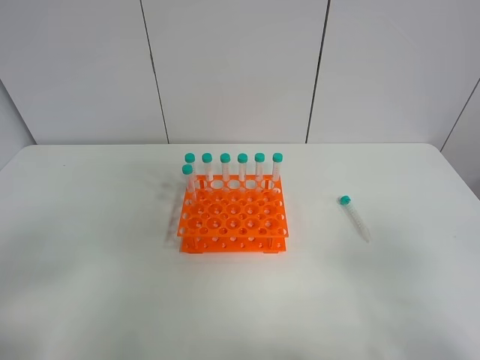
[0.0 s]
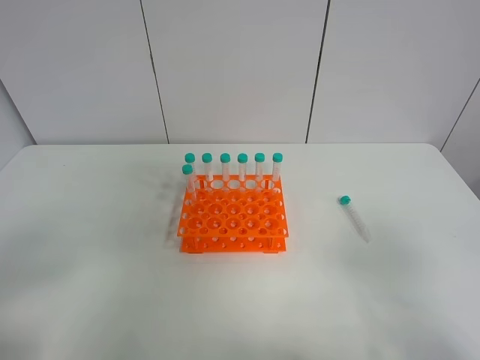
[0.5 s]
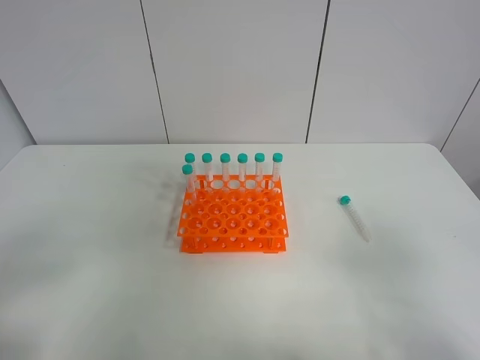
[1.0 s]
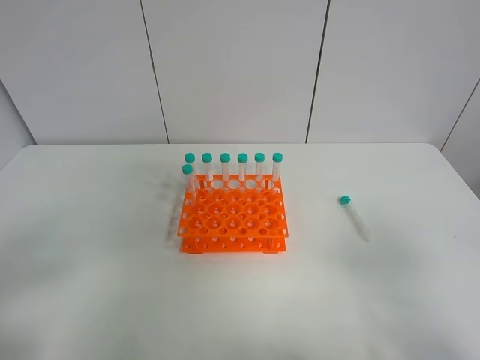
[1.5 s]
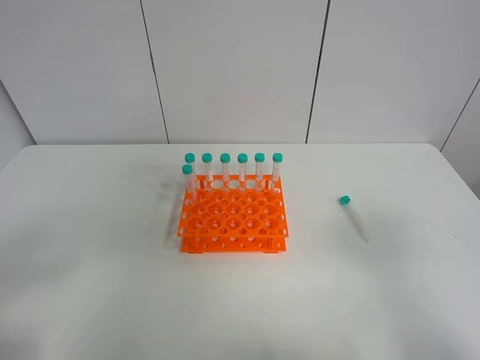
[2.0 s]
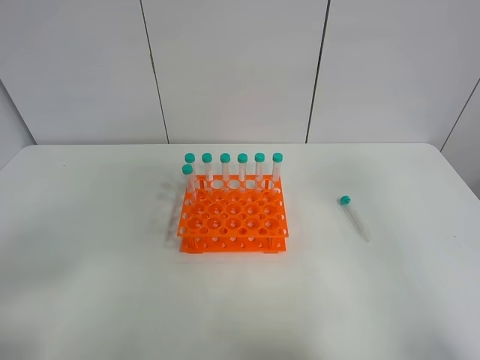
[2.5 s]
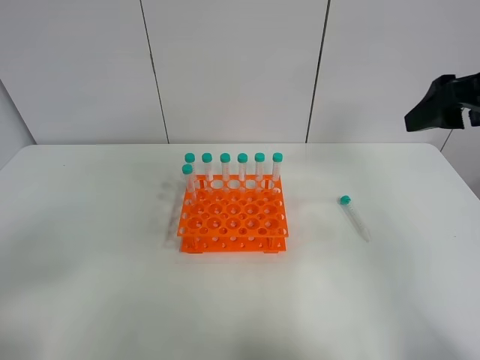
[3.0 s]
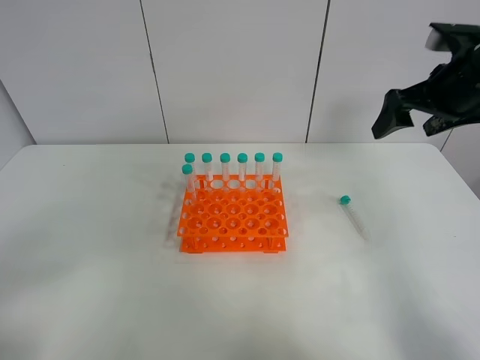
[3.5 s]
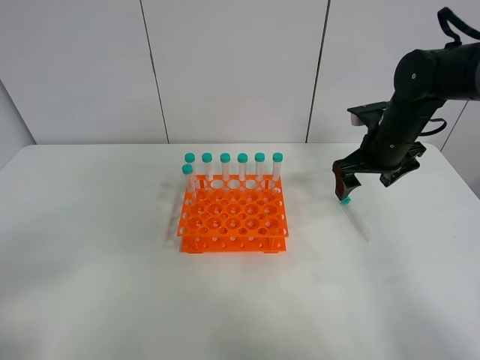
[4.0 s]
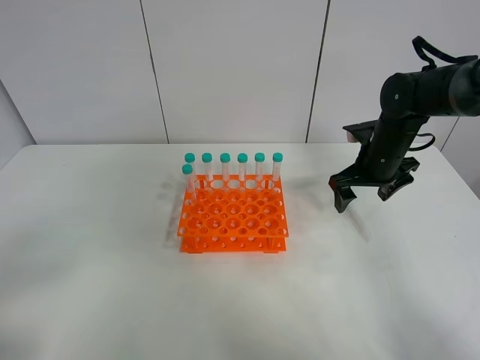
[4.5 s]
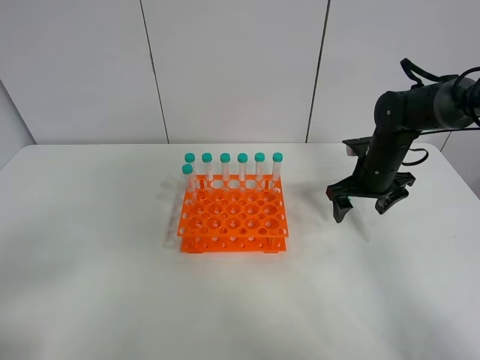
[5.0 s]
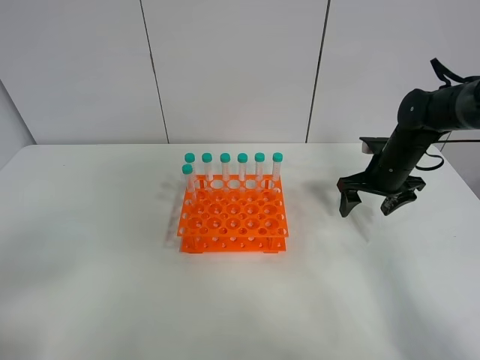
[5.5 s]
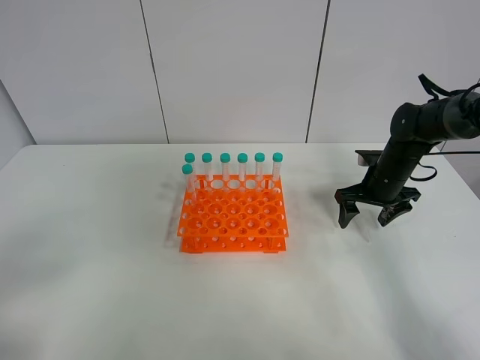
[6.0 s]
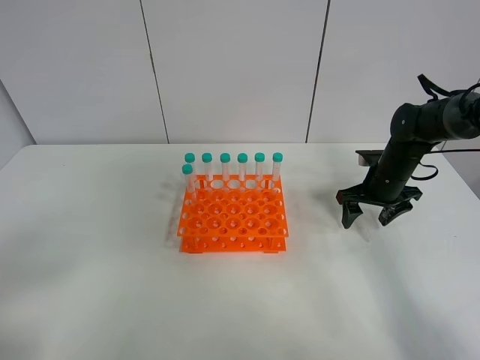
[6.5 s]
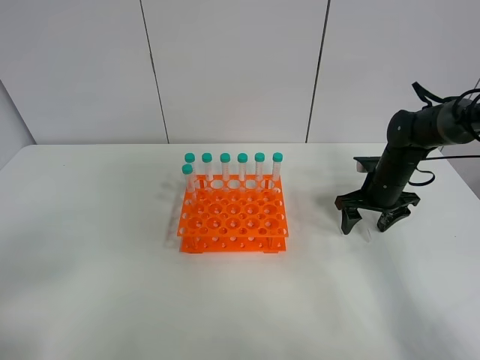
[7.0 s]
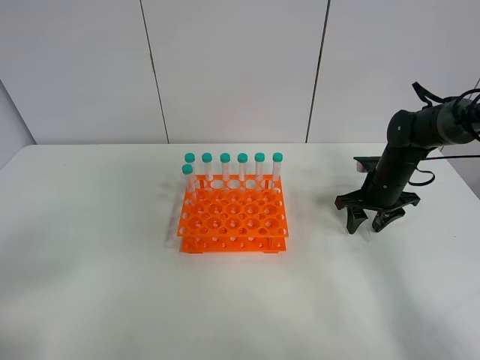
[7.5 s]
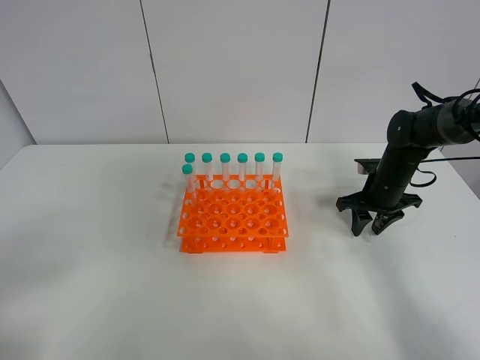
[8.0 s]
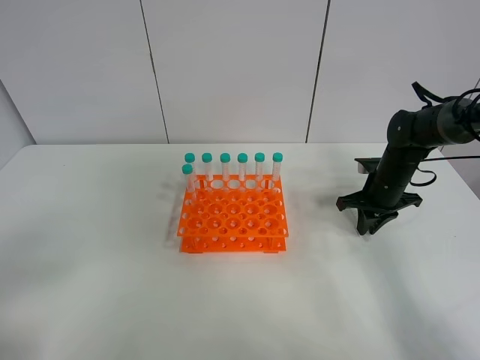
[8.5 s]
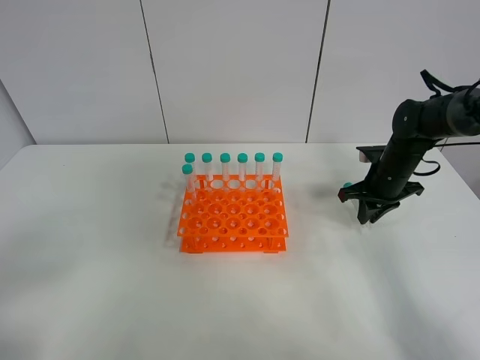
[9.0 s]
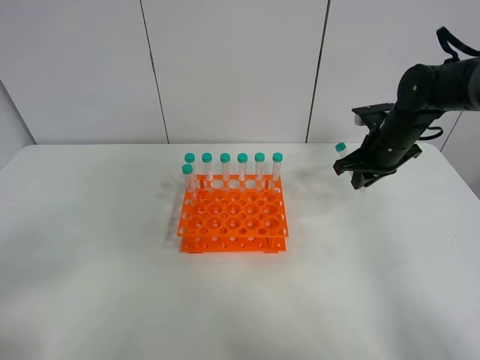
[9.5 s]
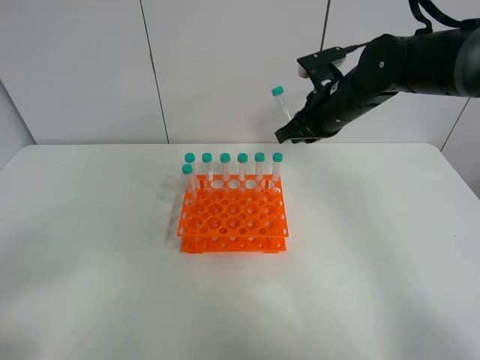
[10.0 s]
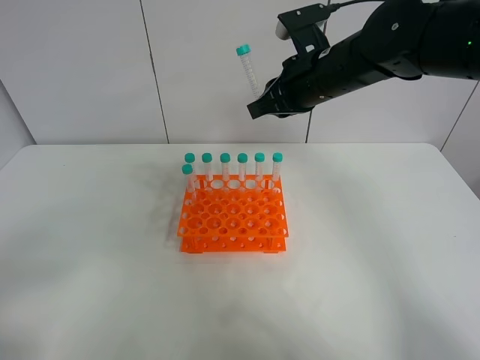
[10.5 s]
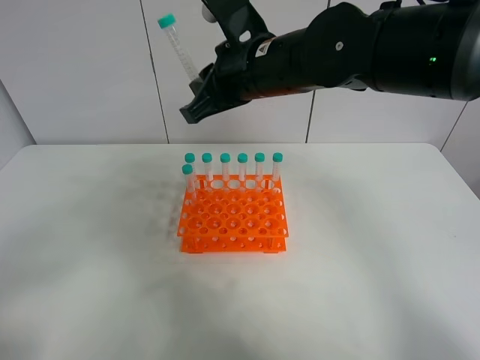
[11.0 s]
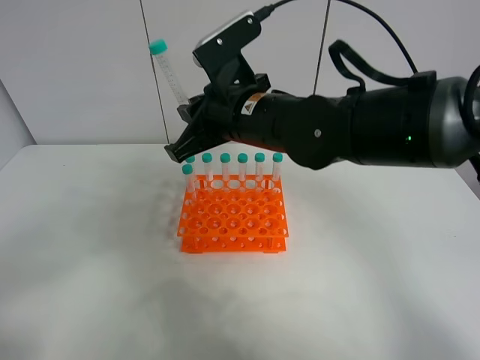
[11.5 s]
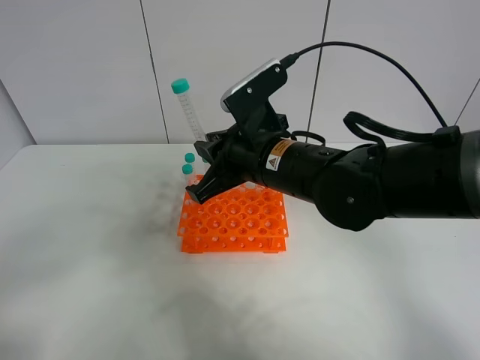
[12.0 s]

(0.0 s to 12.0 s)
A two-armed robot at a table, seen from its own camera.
Task of the whole recording: Put the test tube on the table back onto the test tube rack.
Step, 0.0 s - 8.0 s: Pick up the test tube with the right gripper.
2.0 s - 4.0 s: The right gripper goes some 40 cm forward.
4.0 s - 6.0 s: The right gripper goes roughly 10 cm downward.
6.0 s - 8.0 s: The right gripper closes.
8.0 s - 10.0 s: The right gripper moves upward and to the left, some 20 cm.
10.0 s - 12.0 s: The right gripper moves backward and to the left, some 15 cm.

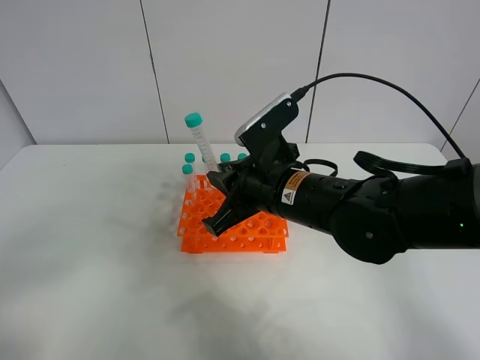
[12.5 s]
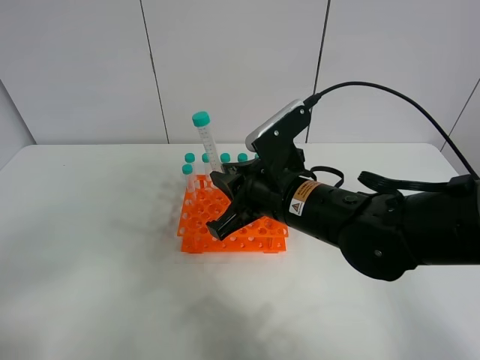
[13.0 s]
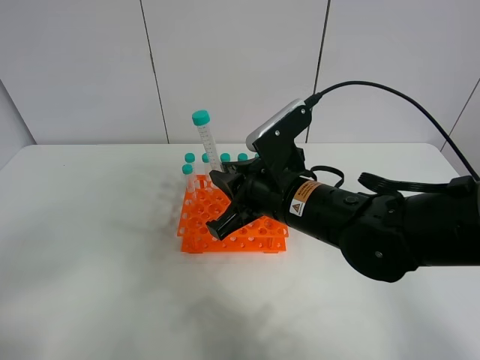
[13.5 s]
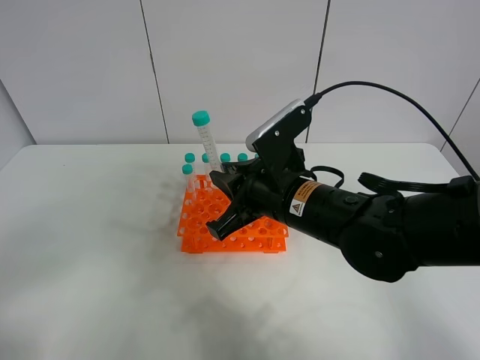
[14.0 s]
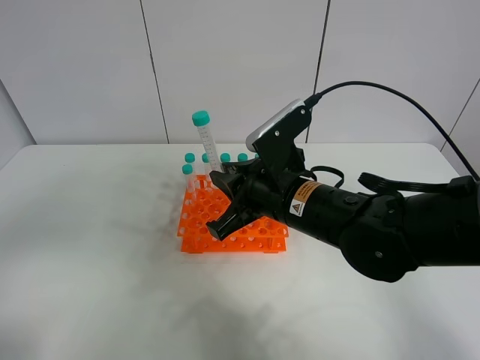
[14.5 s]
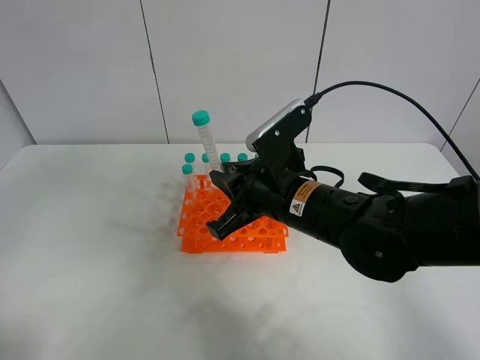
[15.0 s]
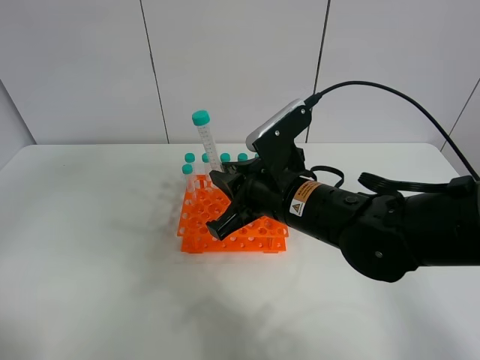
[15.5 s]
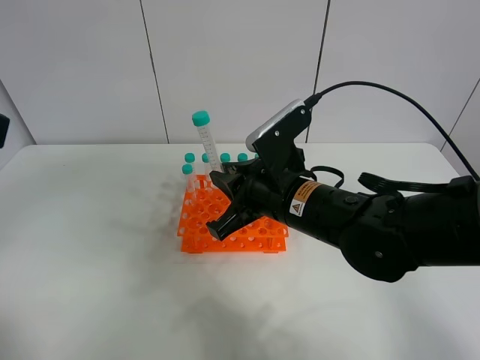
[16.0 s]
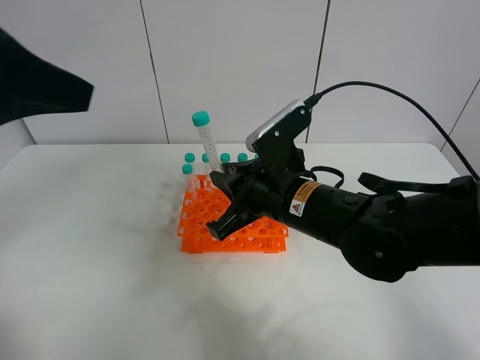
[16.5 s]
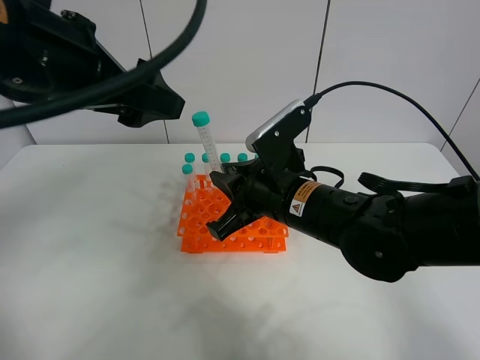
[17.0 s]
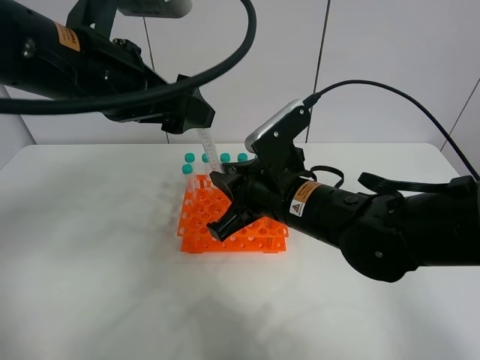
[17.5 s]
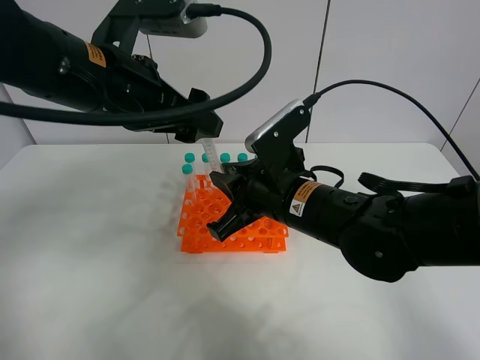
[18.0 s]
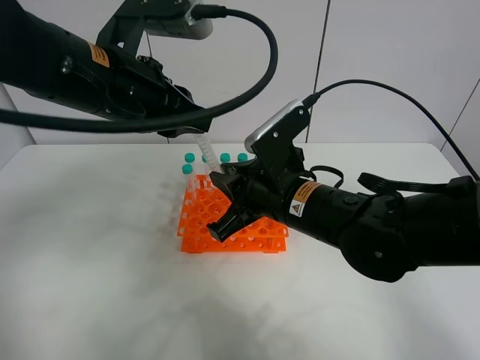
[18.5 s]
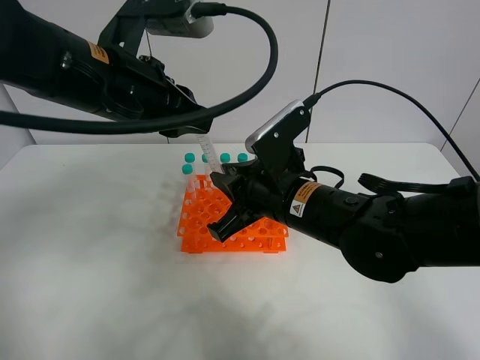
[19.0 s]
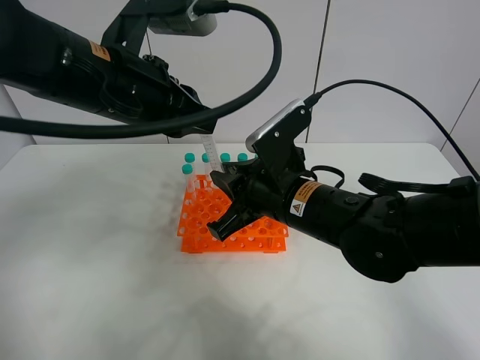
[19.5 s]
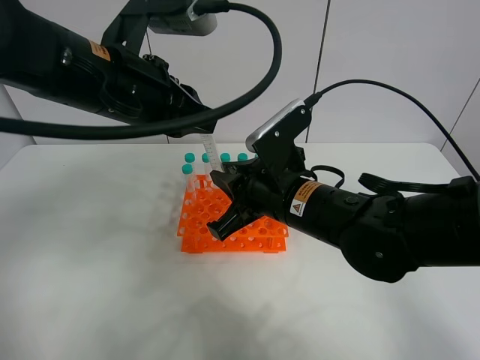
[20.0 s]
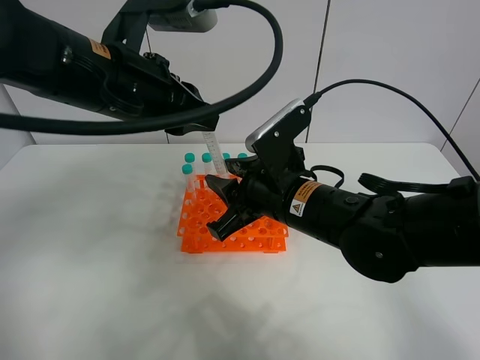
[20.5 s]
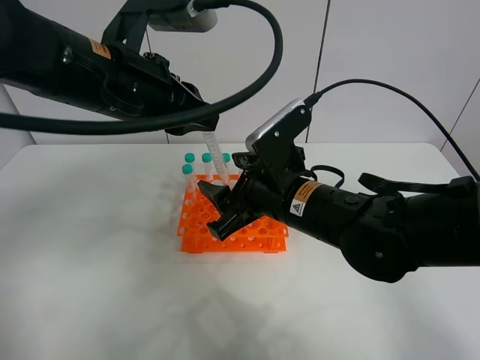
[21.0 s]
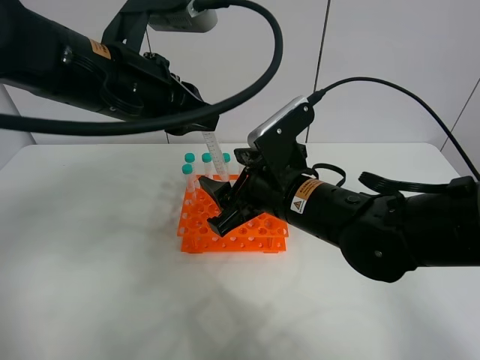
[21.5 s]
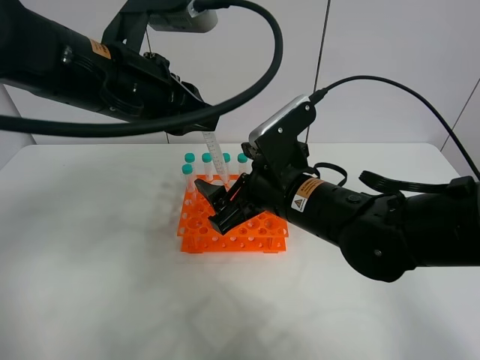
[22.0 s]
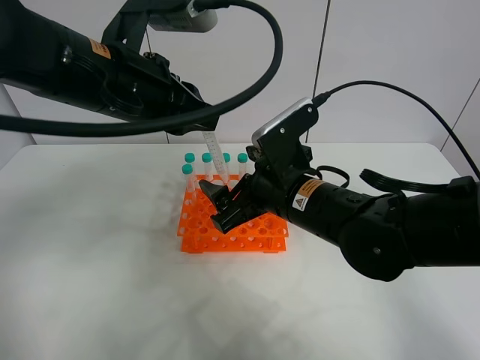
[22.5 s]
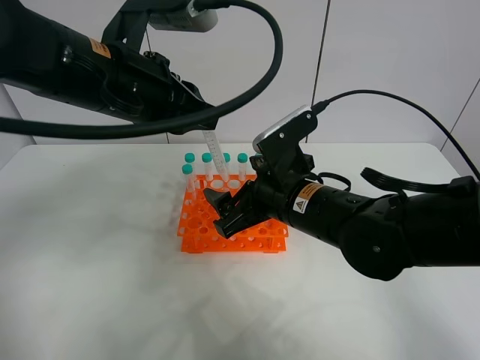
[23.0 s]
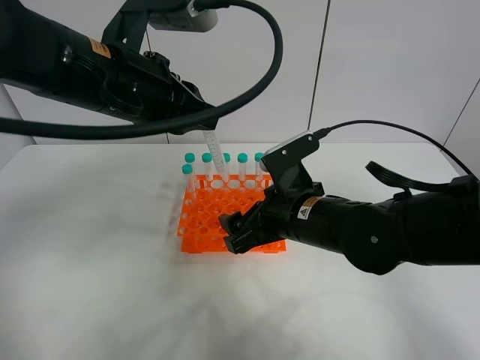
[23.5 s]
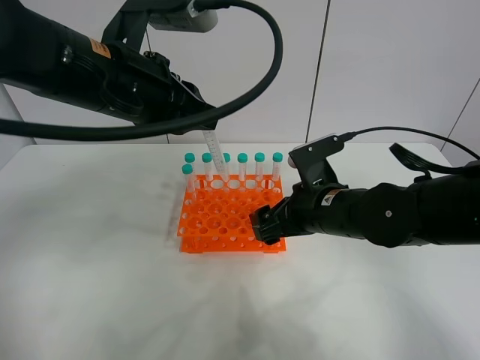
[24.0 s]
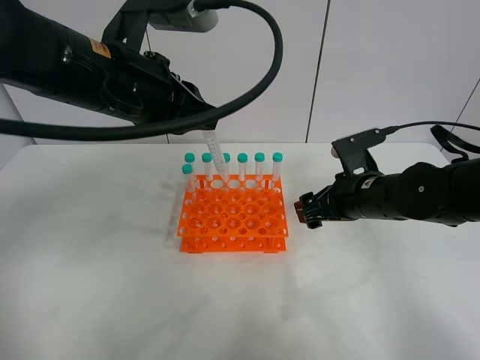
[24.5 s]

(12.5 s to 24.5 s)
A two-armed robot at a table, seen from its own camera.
Task of the whole recording: Put the test tube on the table back onto the test tube rack.
Step, 12.5 s - 19.5 s: Move the test tube from the right gripper to the left gripper.
12.5 s - 14.5 s: The left gripper heads upward, covering some 10 cm.
14.5 s - 16.5 s: The left gripper travels forward, to the right and upward by roughly 20 cm.
16.5 s - 18.5 s: The left gripper moves forward, downward and to the right, approximately 15 cm, and closes up.
18.5 s - 20.5 s: Both grippers stay put.
20.5 s - 22.5 s: The right gripper opens its fingers.
22.5 s - 24.5 s: The right gripper heads to the right, covering about 10 cm.

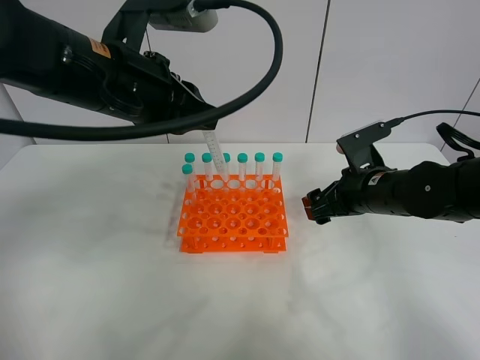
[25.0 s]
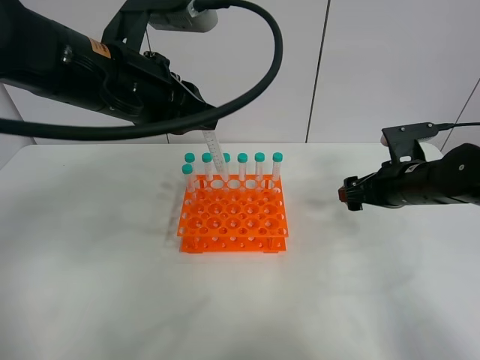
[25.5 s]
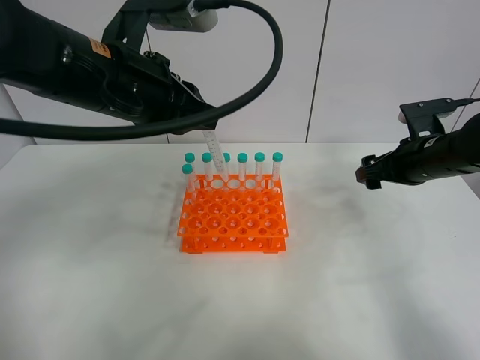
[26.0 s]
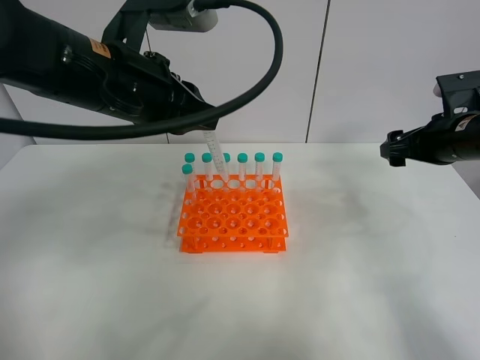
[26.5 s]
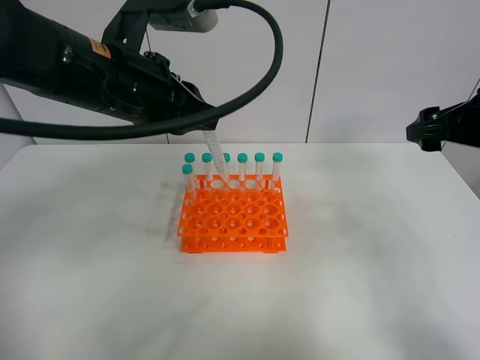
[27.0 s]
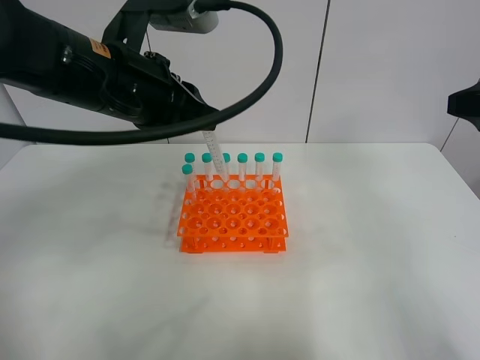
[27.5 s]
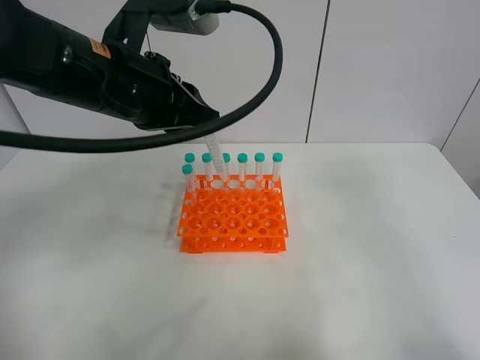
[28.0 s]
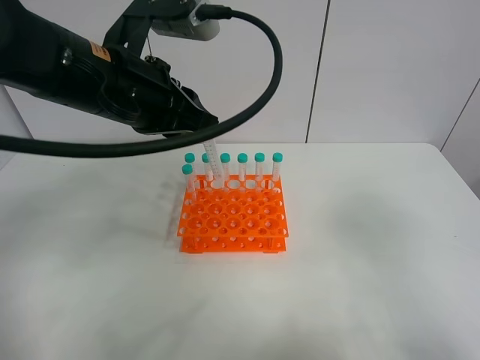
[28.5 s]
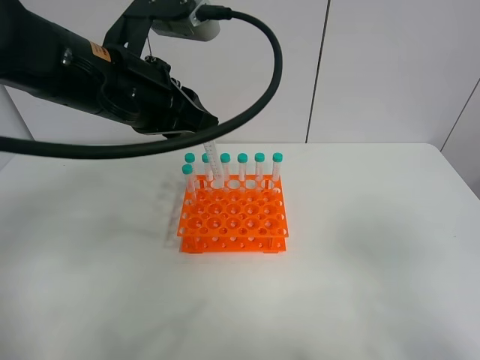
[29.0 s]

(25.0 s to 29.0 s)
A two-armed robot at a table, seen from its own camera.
Task of the whole recording: Put the test tube on the table back onto the test tube rack.
25.0 s - 27.0 s: The right gripper is displaced upward and to the right by roughly 15 cm.
27.0 s - 29.0 s: The right gripper heads backward, covering roughly 25 cm.
